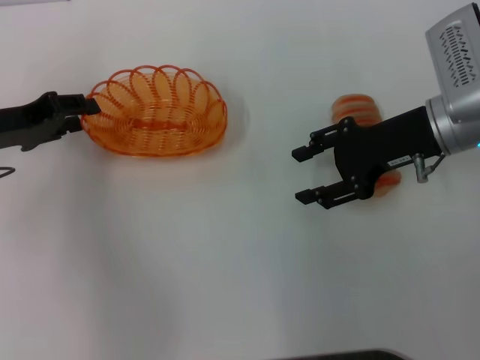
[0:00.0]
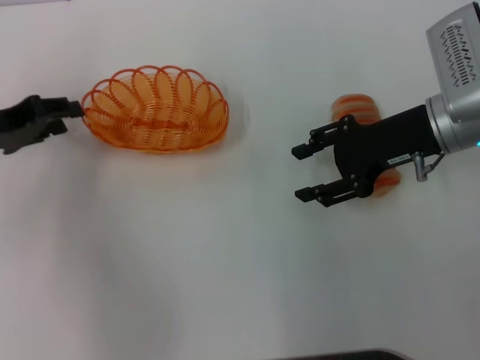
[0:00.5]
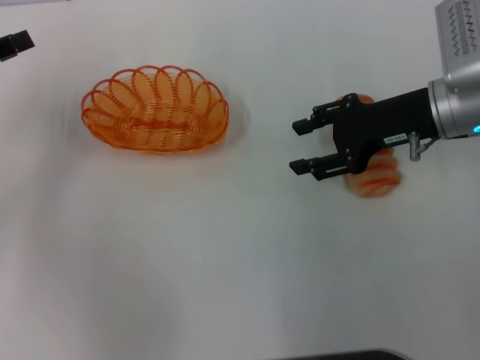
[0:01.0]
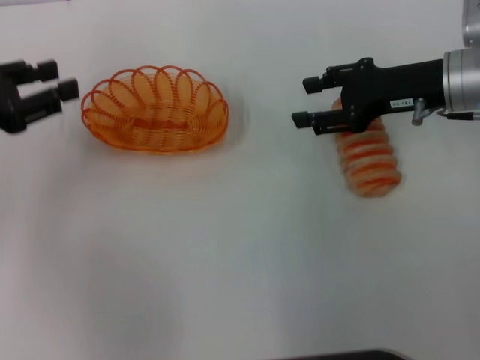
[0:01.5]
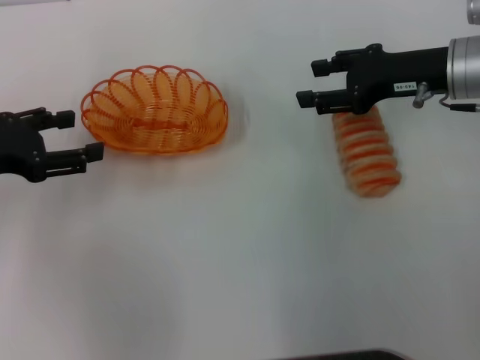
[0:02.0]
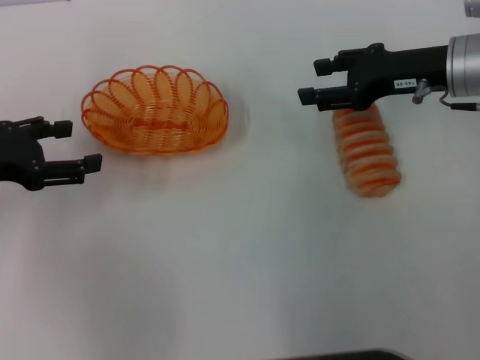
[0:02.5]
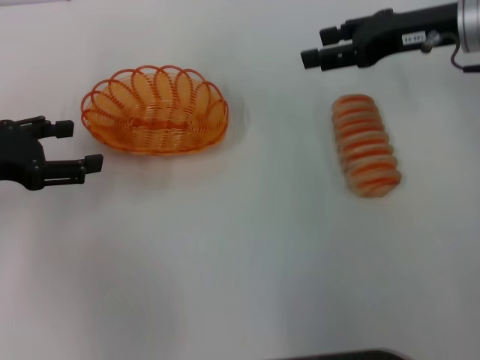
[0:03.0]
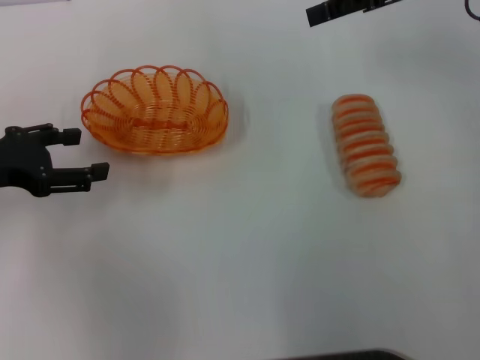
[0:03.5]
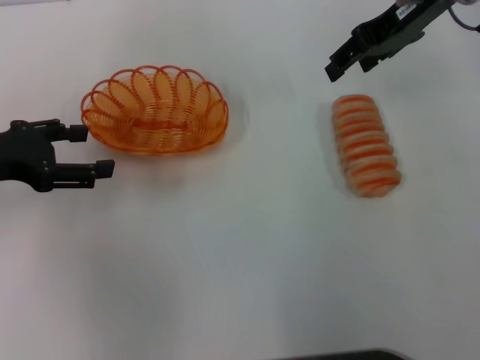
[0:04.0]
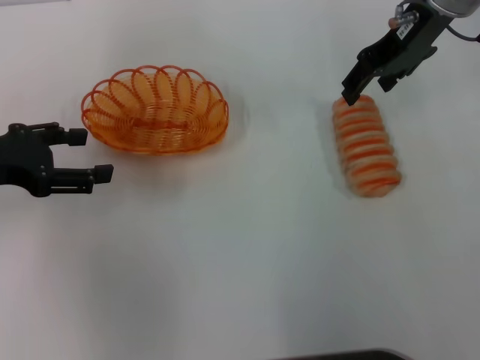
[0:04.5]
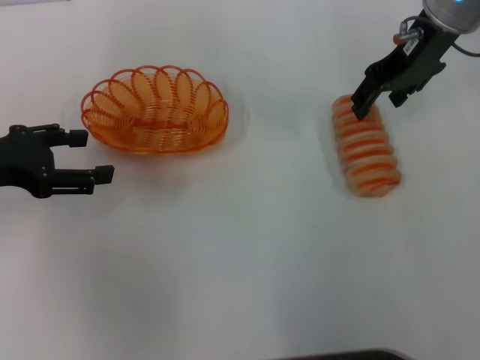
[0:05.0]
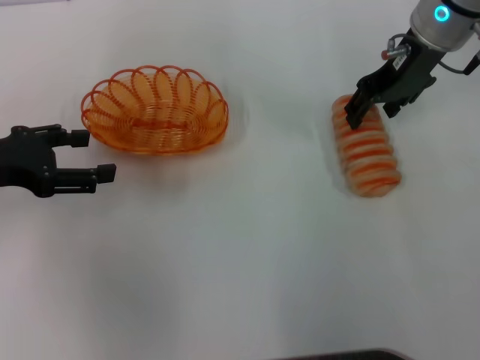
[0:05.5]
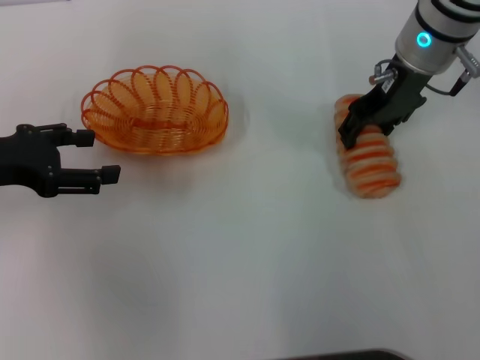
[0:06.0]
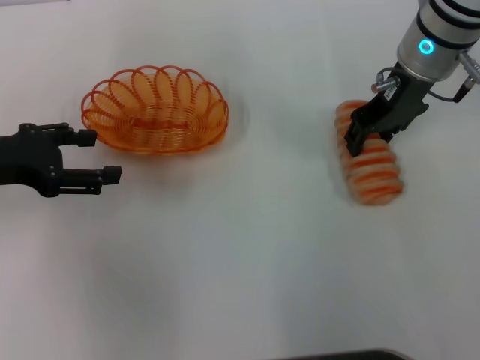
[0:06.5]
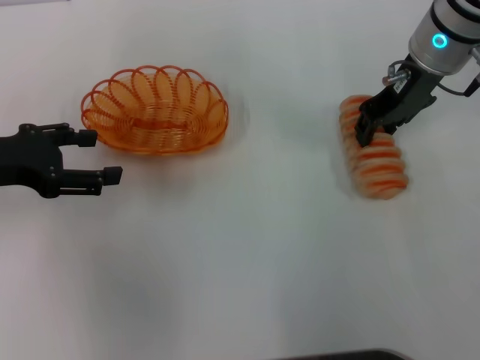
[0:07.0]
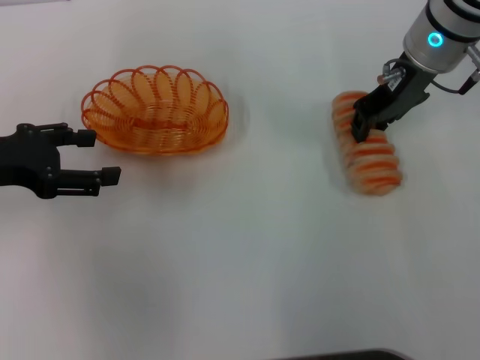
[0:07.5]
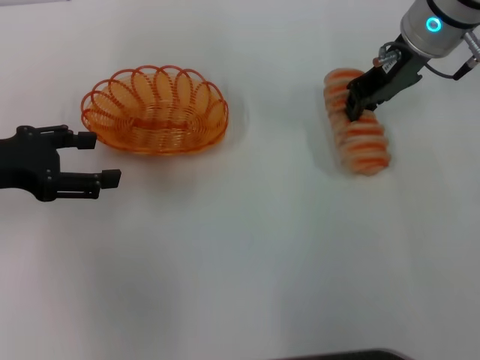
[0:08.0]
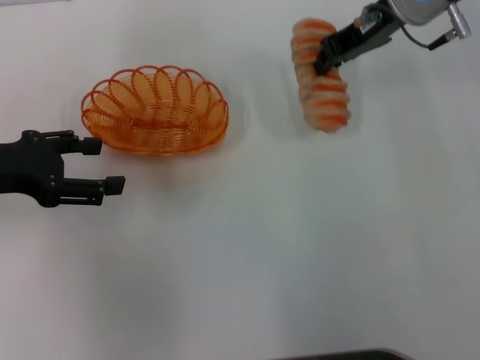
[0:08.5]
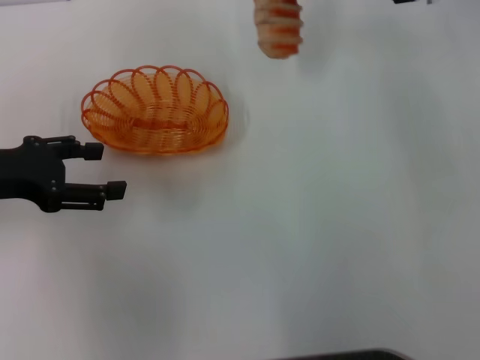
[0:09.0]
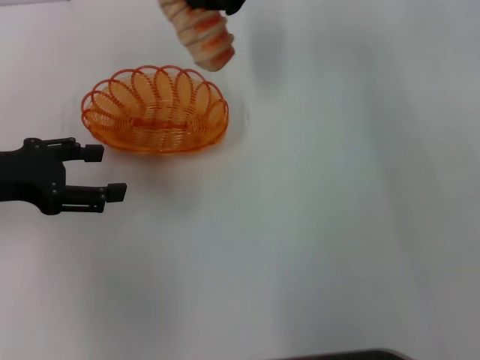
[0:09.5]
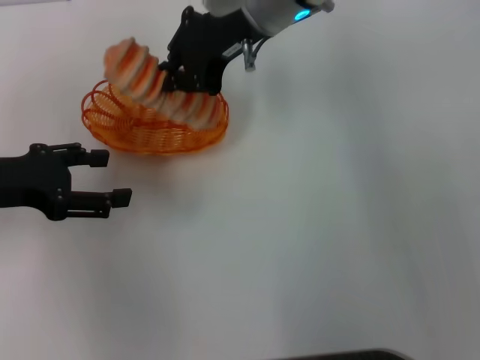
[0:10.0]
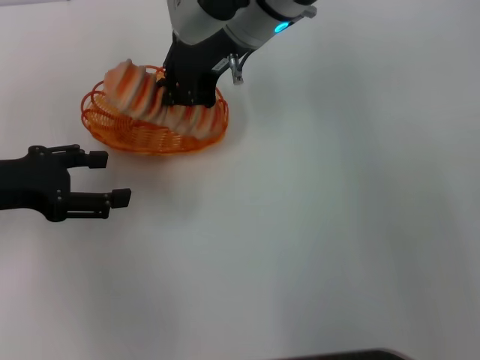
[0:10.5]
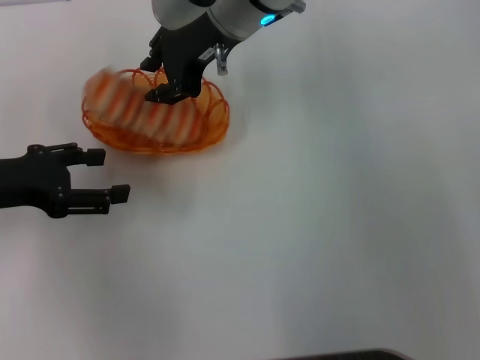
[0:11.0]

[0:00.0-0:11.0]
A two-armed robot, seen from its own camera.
Step, 0:00.5 to 0:07.5: Pick up the long bread with the right gripper.
0:00.0 to 0:02.0: The left gripper opens.
0:02.0 to 0:03.5: The right gripper travels upward by approximately 10 cm.
0:03.5 to 0:05.5: The right gripper shifts some 5 cm to the left.
0:05.5 to 0:07.5: The right gripper closes up.
0:07.5 to 0:09.0: The right gripper shifts by some 5 cm, and closes its fingers.
0:09.0 to 0:11.0: The right gripper moves to the left, roughly 15 cm.

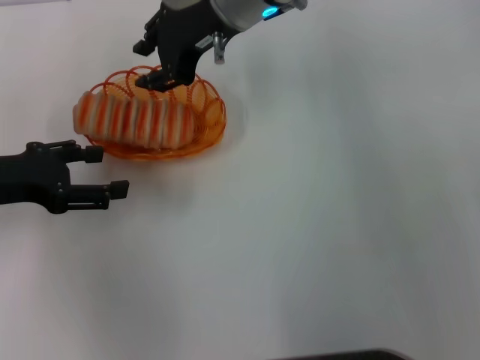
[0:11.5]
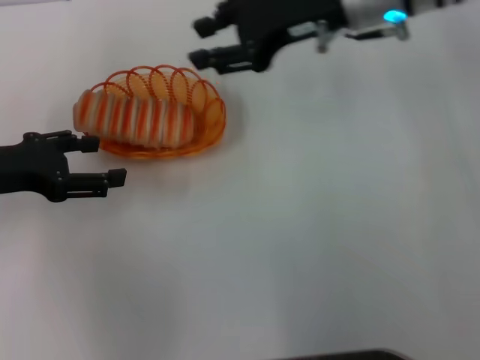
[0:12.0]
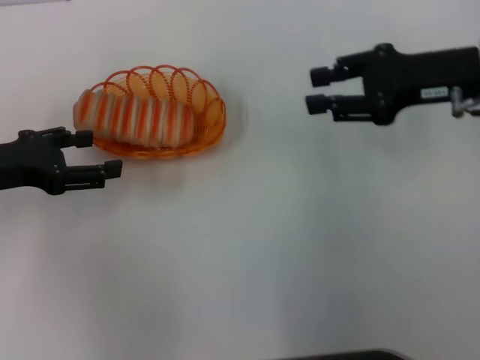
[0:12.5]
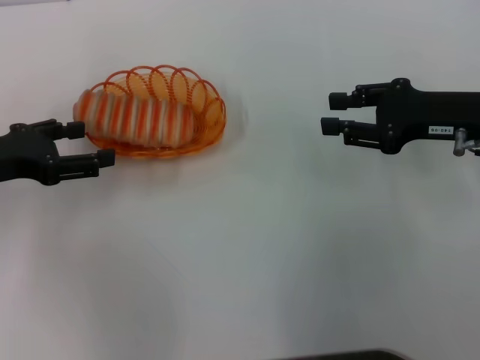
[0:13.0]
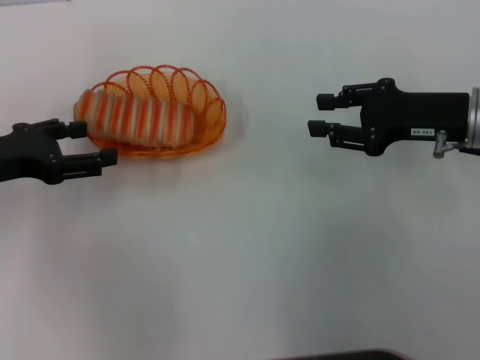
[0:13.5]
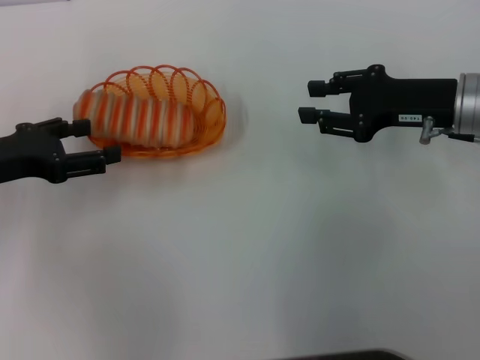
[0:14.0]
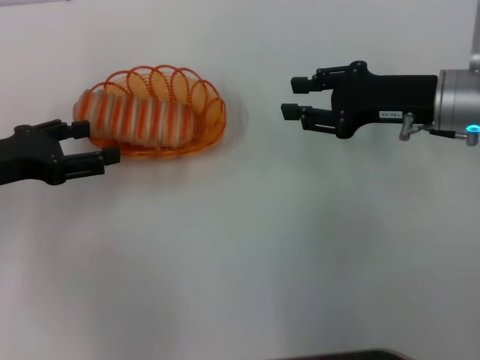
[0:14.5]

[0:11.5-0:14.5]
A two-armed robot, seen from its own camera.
0:11.5 to 0:13.0: The right gripper heads to the right and backward, covering roughly 25 cm.
0:13.0 to 0:14.5: The grippers move only a little.

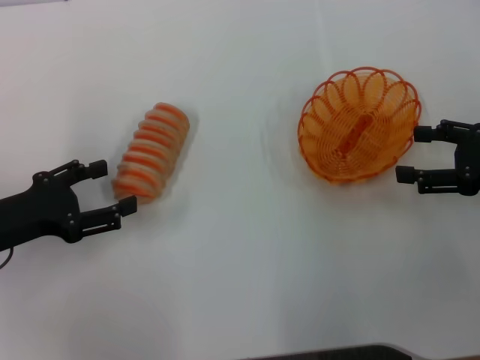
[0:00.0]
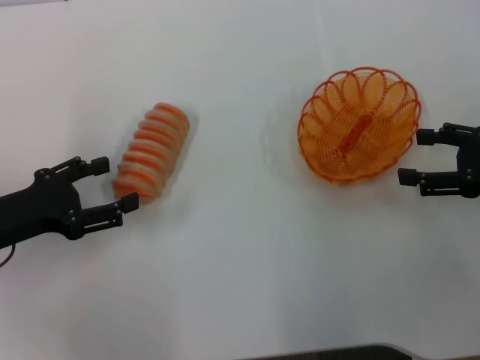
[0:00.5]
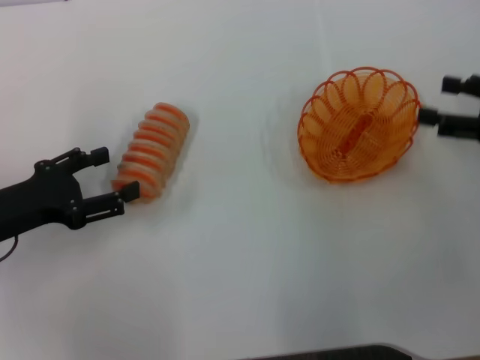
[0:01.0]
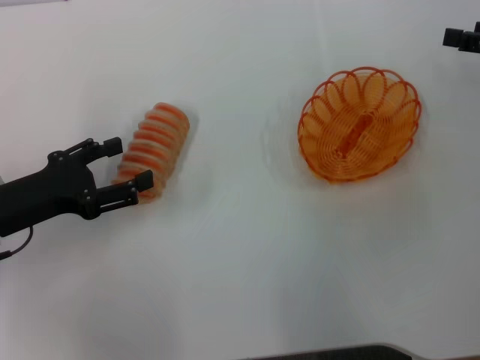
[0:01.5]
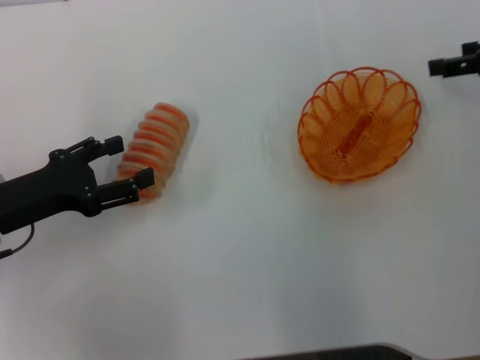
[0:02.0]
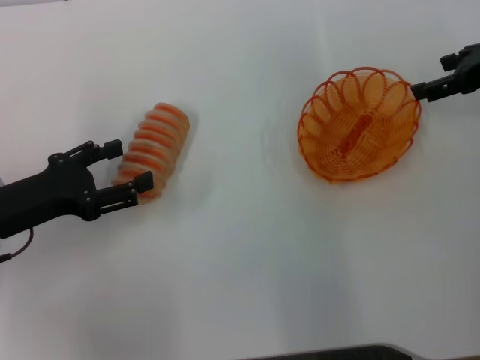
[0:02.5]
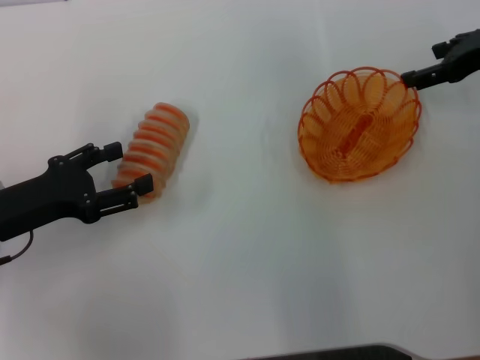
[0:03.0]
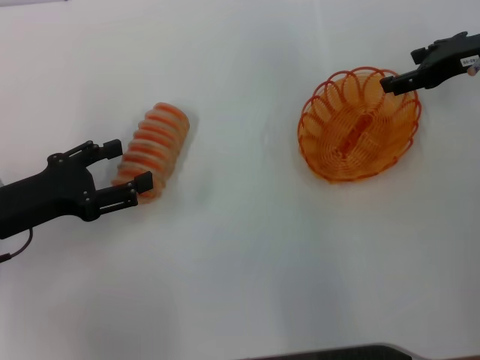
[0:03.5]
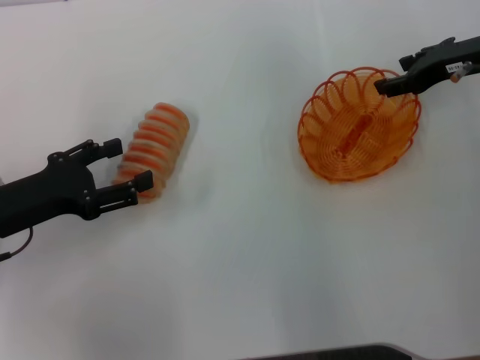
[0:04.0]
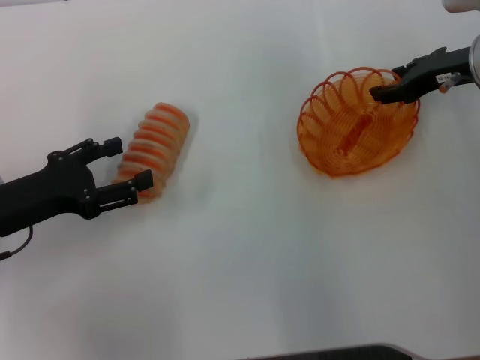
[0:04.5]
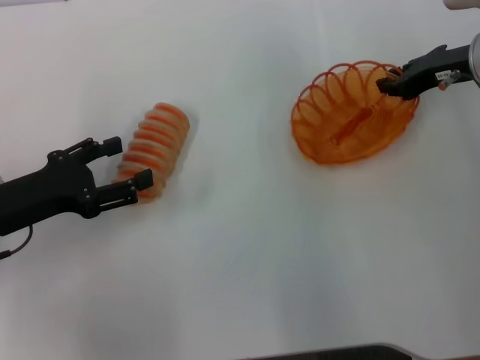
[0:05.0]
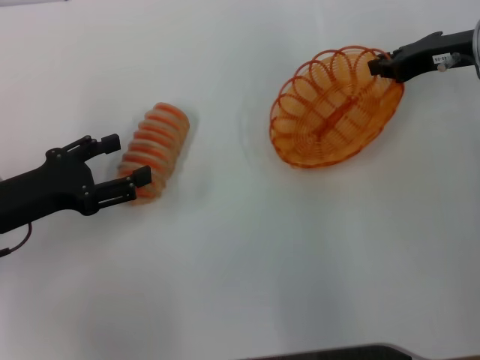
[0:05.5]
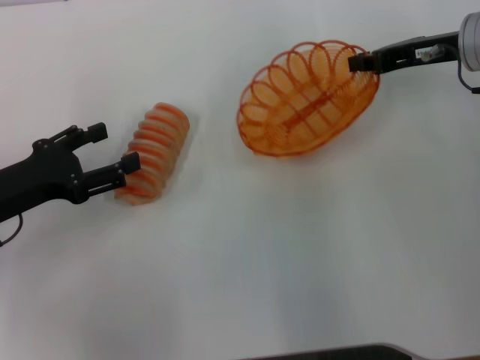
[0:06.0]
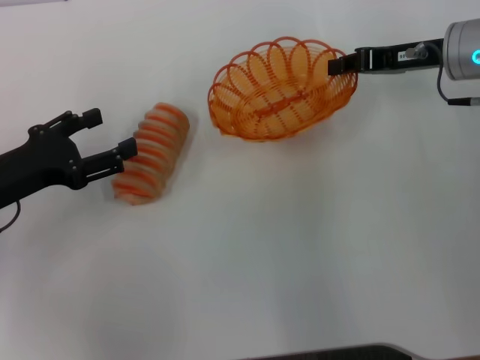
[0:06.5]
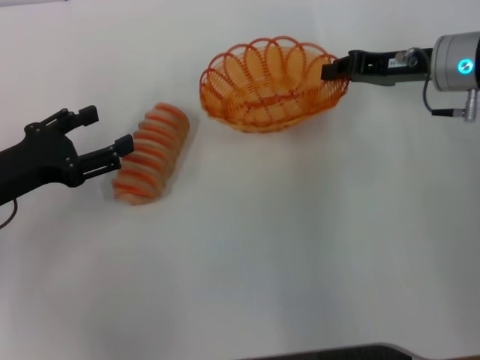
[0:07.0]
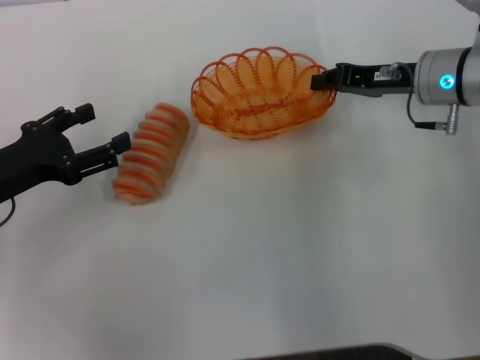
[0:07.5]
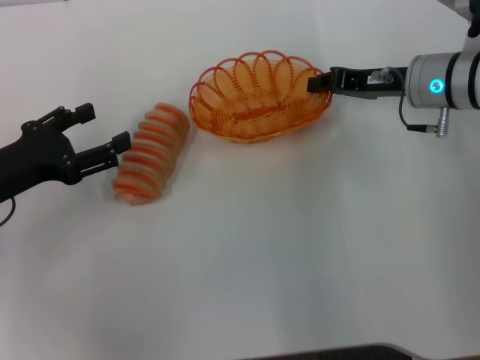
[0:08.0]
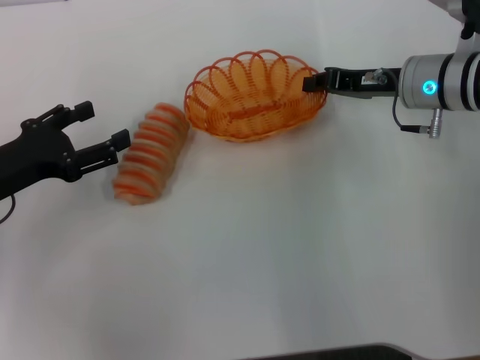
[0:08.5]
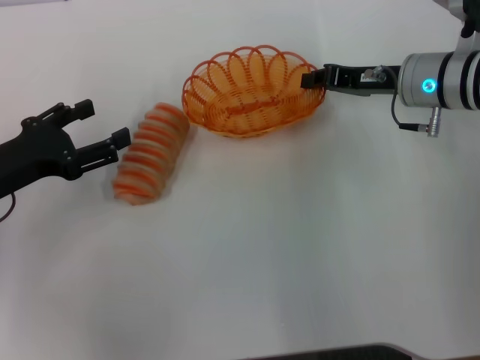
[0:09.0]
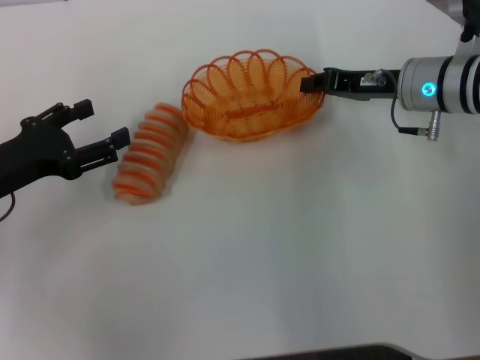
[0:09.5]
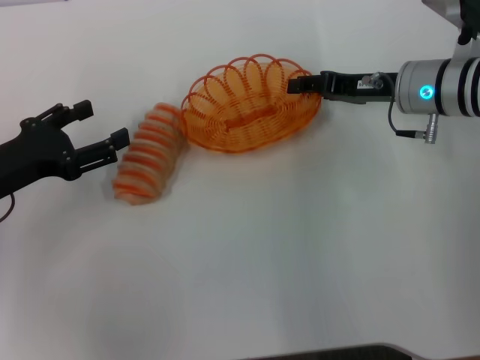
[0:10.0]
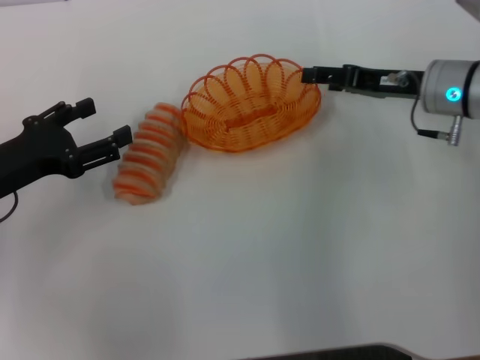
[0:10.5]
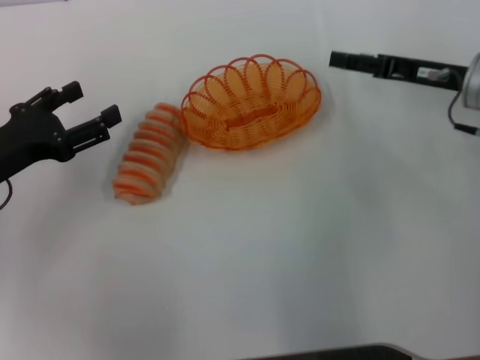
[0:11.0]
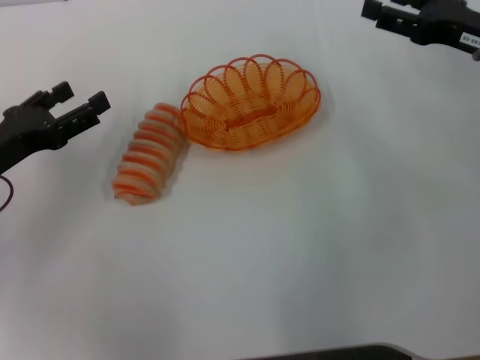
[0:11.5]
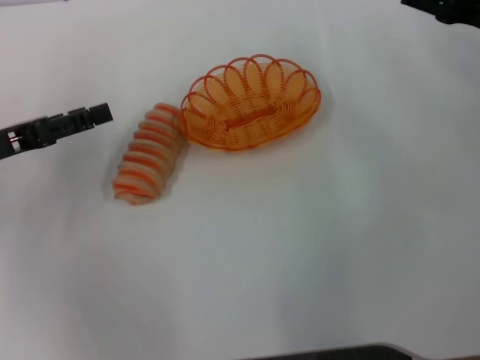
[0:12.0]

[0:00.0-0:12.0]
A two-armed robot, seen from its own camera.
Step, 0:00.0 to 0:05.5: Pick up the basket with the right gripper.
Step, 0:06.0 to 0:11.0: Place the basket in the center of view with the right gripper.
0:00.0 to 0:02.0: The right gripper shifts approximately 10 cm forward and upward.
0:02.0 to 0:04.0: The right gripper shifts roughly 5 cm to the left.
0:04.0 to 0:06.0: The right gripper closes up.
0:06.0 to 0:08.0: The right gripper heads downward, covering some 5 cm.
0:08.0 to 0:10.0: The right gripper opens up.
0:10.0 to 0:12.0: The right gripper travels to the right and upward by roughly 10 cm, and opens.
